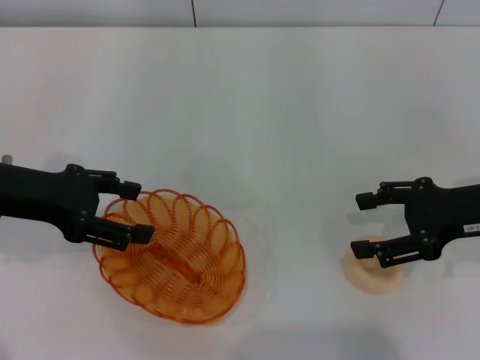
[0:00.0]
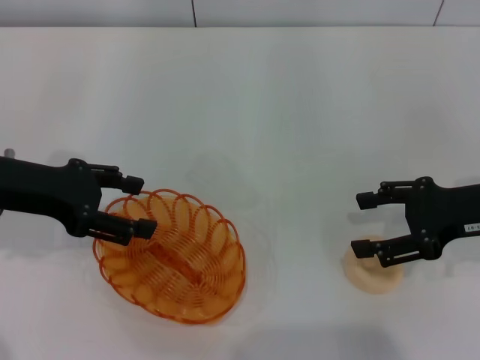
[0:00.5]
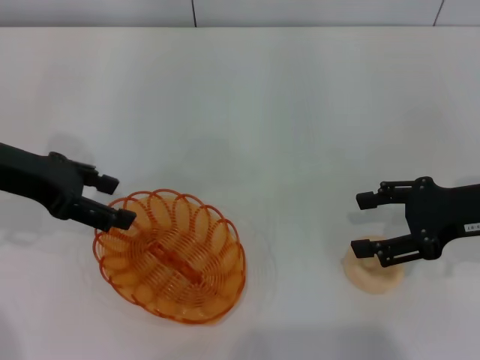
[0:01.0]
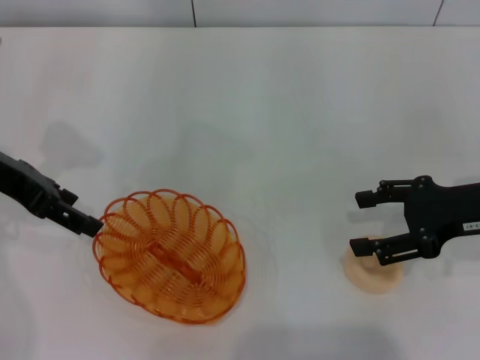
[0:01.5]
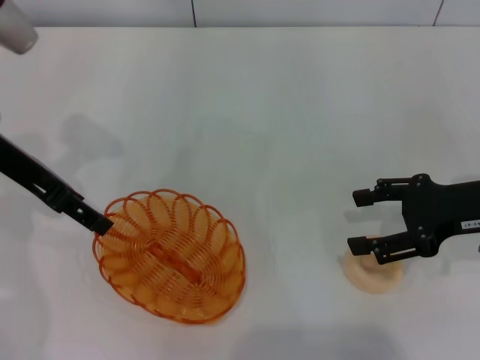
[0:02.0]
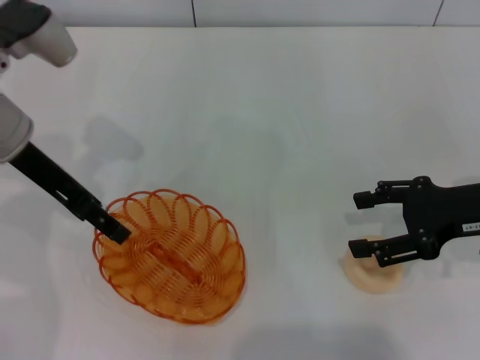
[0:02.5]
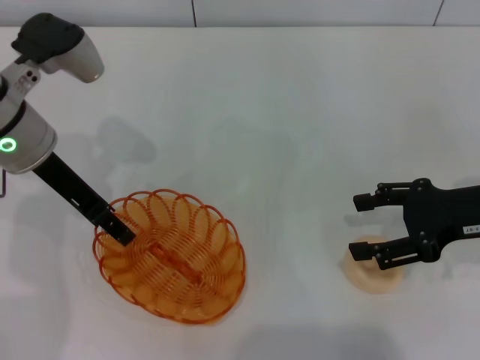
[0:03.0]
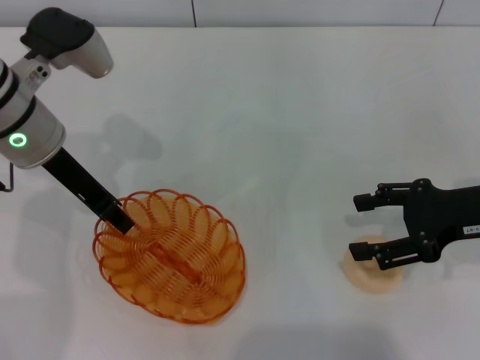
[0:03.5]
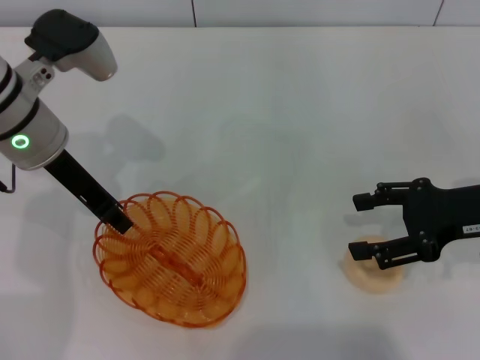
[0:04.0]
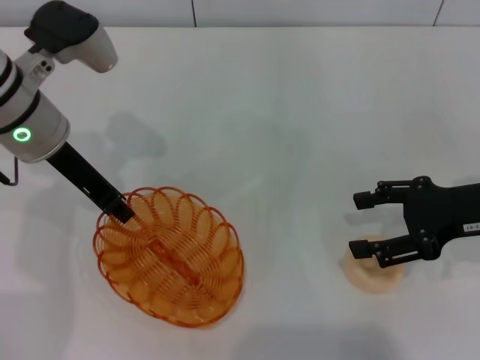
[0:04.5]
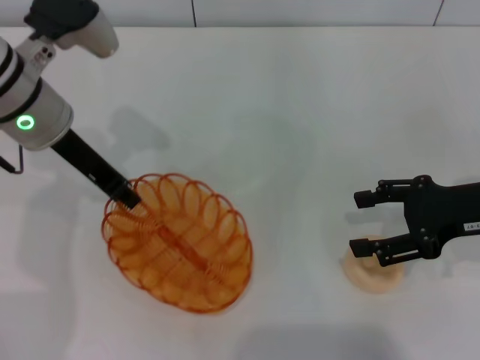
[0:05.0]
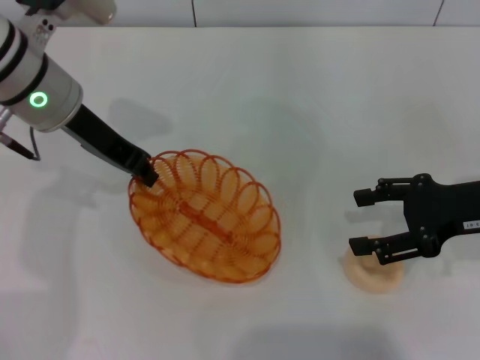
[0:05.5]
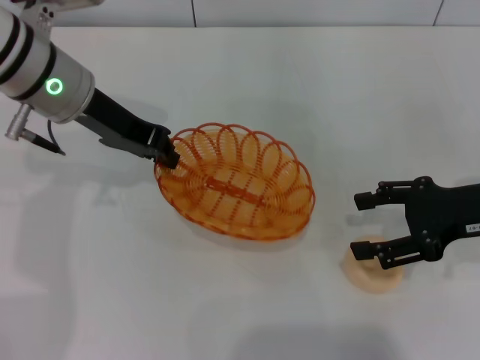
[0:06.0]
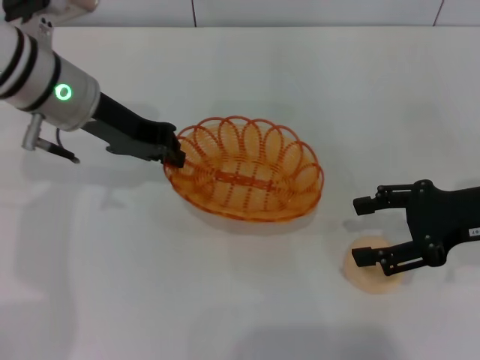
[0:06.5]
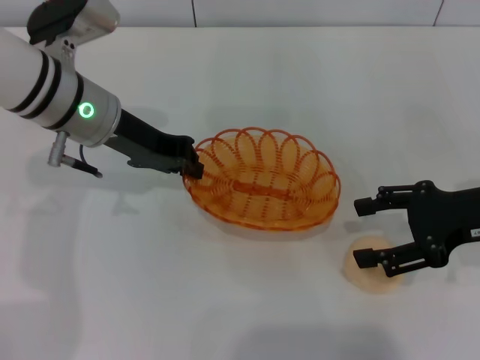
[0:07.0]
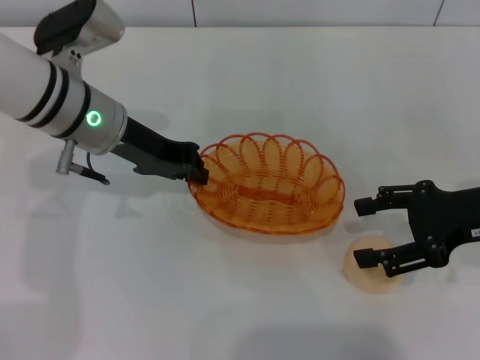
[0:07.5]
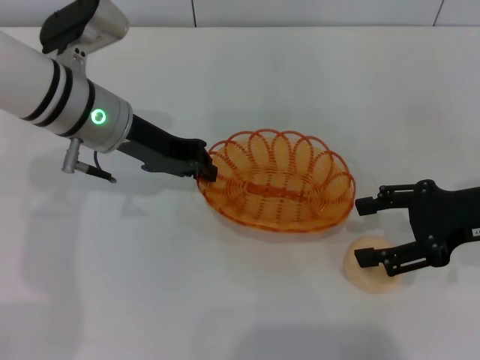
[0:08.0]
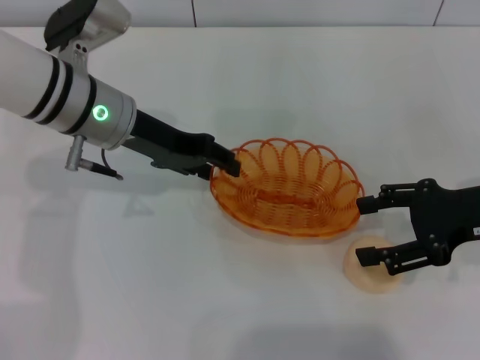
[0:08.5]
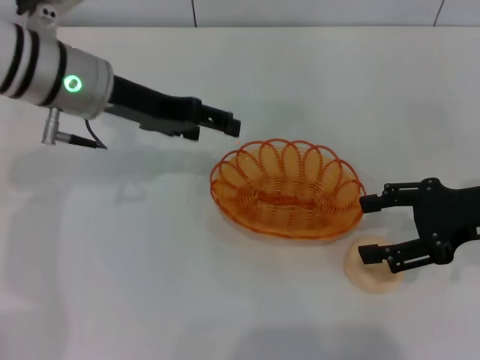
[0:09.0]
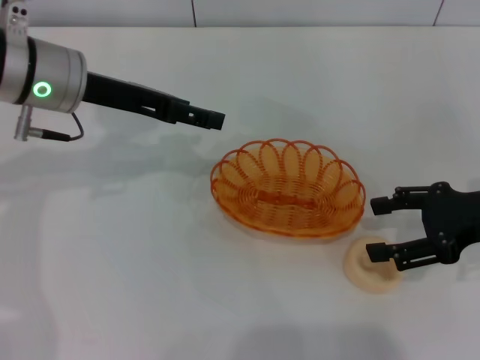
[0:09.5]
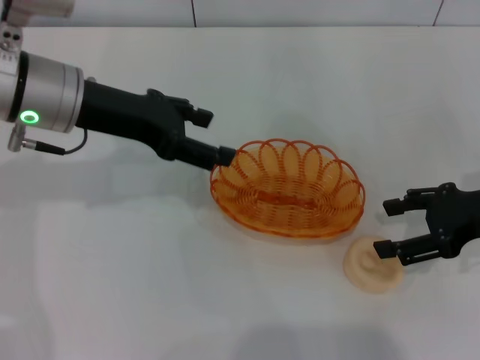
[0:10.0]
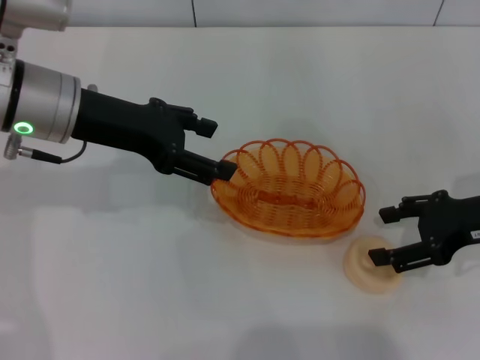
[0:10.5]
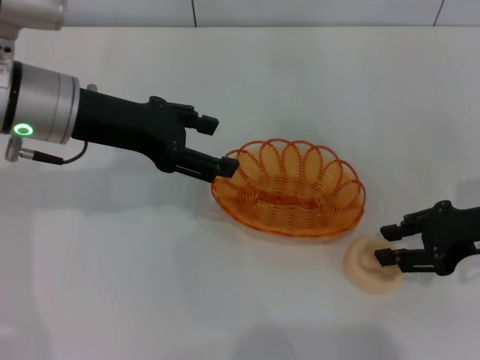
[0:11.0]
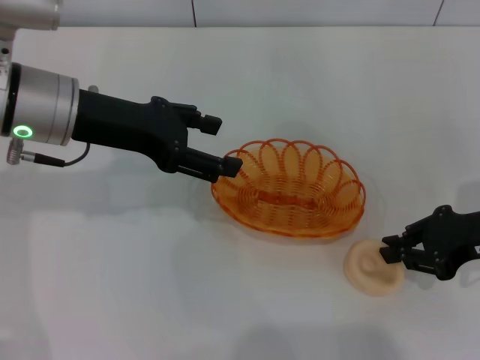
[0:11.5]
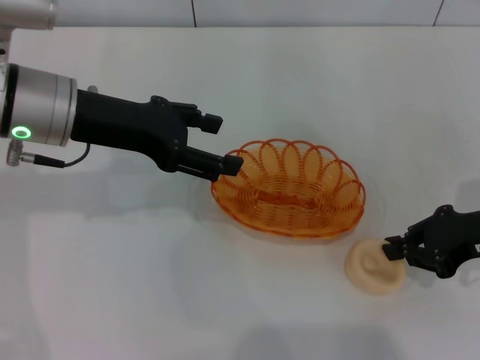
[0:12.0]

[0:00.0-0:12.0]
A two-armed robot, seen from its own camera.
Step, 0:00.0 to 0:04.5: Pick up the basket with the left gripper.
Step, 0:05.5 to 0:09.5: Place the basket in the center of view with the left gripper.
0:00.0 to 0:02.0: The left gripper heads forward, covering approximately 5 cm.
0:02.0 to 0:04.0: The left gripper heads to the right, covering approximately 5 cm, and closes up.
0:06.0 to 0:08.0: There are only small adjustments of the grippers.
0:08.0 to 0:10.0: The left gripper changes place by some 5 cm, and opens its fingers.
0:10.0 to 0:12.0: The right gripper closes up.

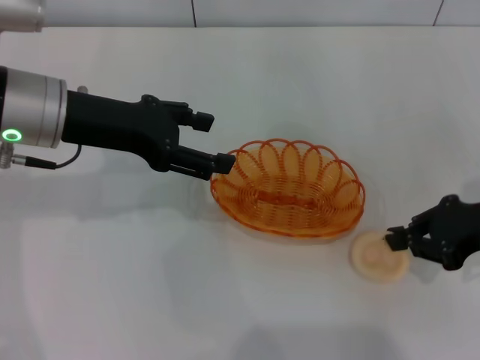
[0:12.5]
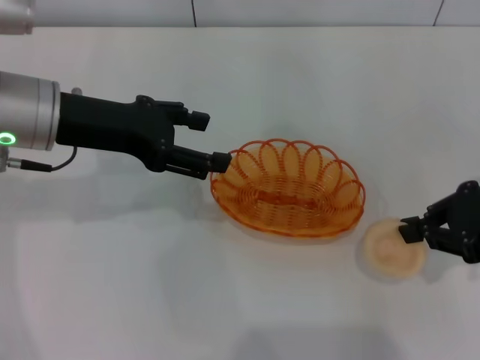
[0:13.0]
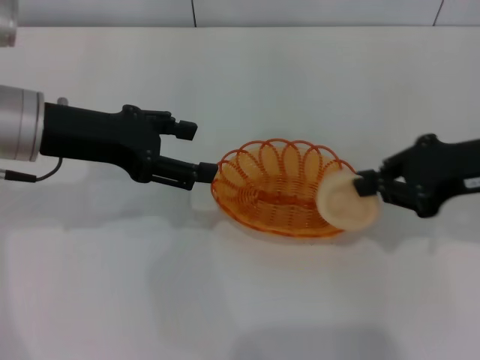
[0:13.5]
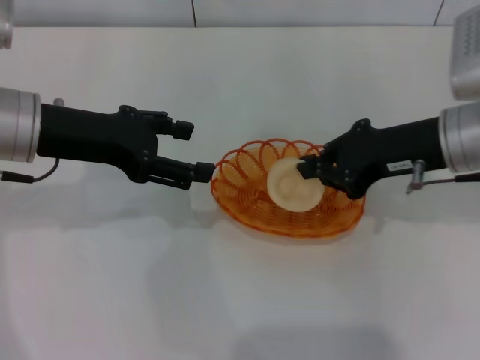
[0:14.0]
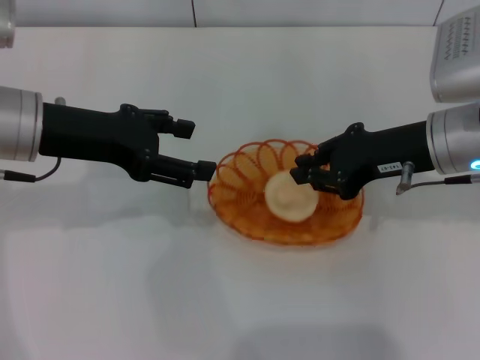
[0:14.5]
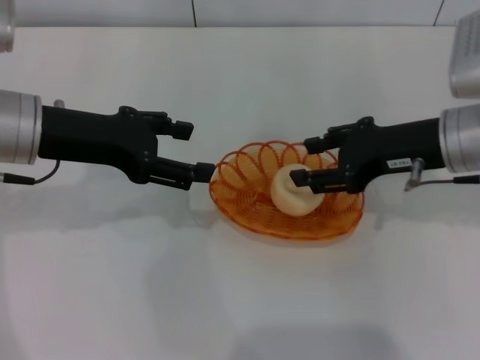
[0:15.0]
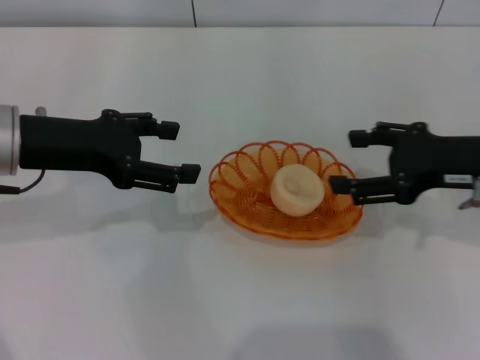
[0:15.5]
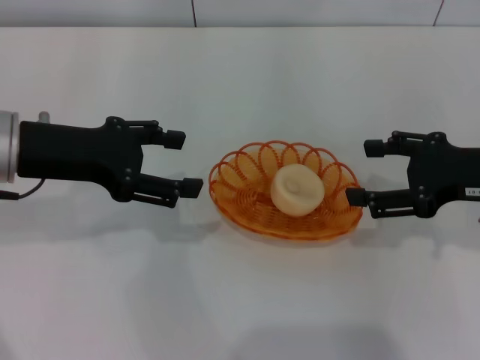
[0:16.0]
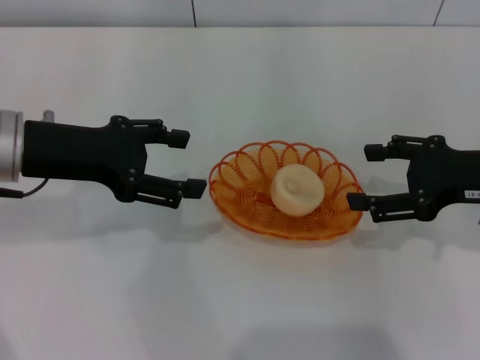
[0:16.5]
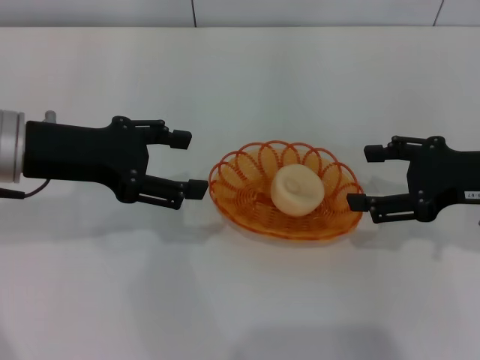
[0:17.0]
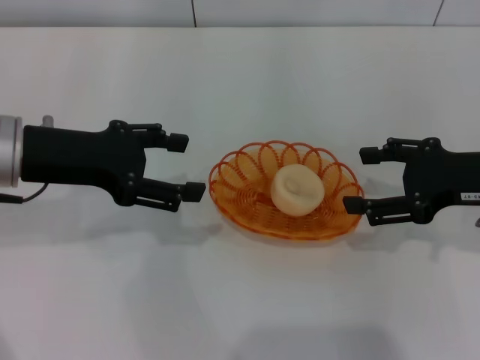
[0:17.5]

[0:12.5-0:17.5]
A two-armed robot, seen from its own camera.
Step, 0:13.5 to 0:16.5: Place the egg yolk pastry into the basket with the right gripper.
0:12.5 to 0:15.0: The right gripper shifts about 10 cm to the left, and opens up.
0:15.0 to 0:17.5: The right gripper shifts approximately 5 cm to the right, and opens.

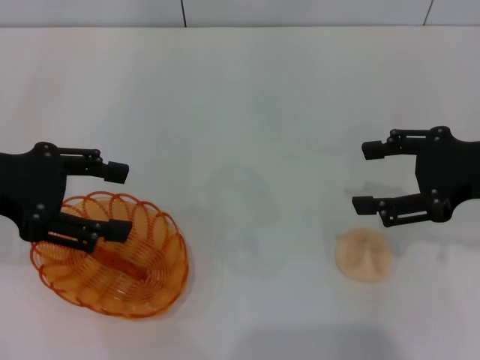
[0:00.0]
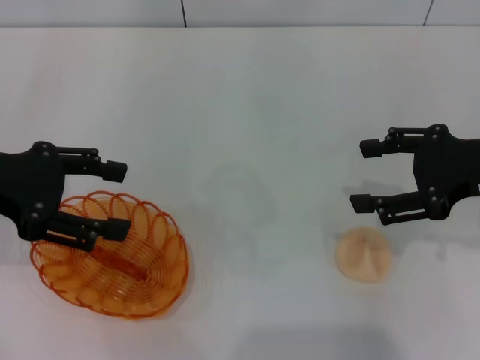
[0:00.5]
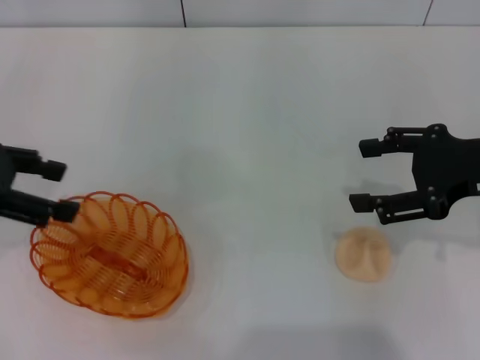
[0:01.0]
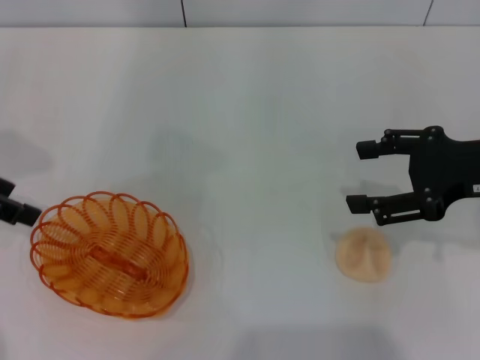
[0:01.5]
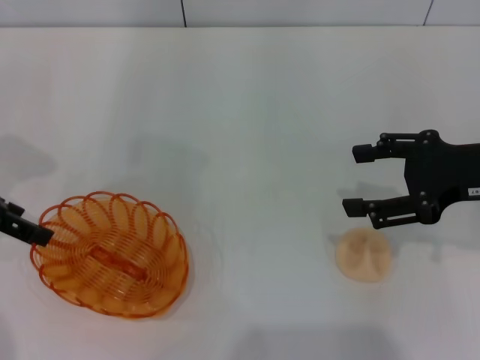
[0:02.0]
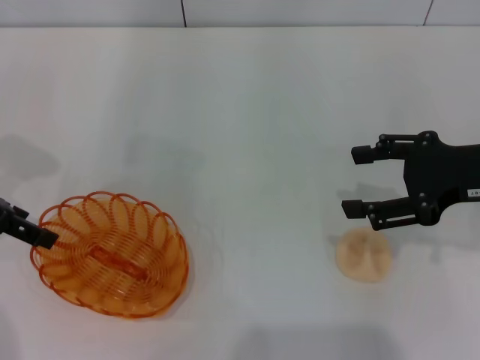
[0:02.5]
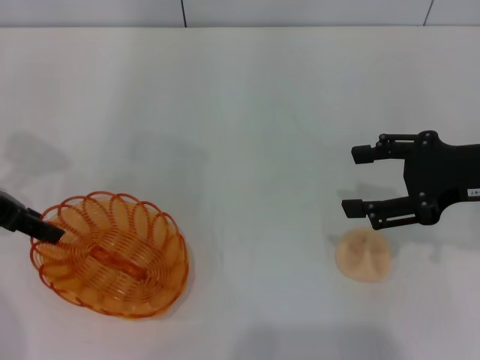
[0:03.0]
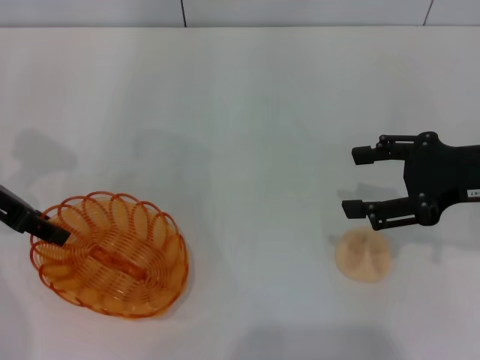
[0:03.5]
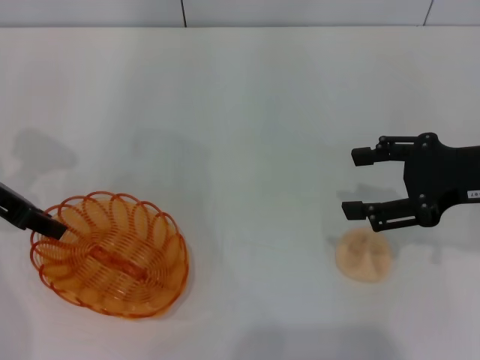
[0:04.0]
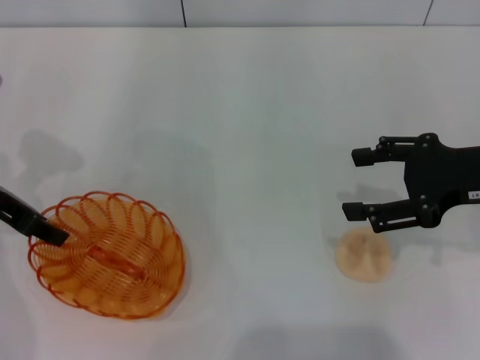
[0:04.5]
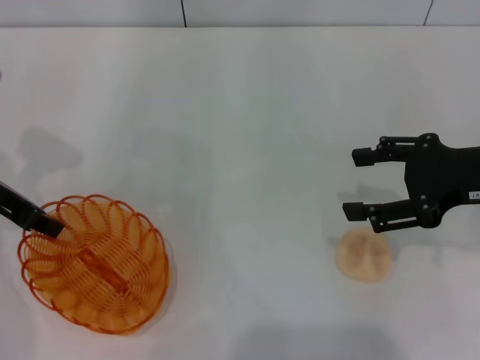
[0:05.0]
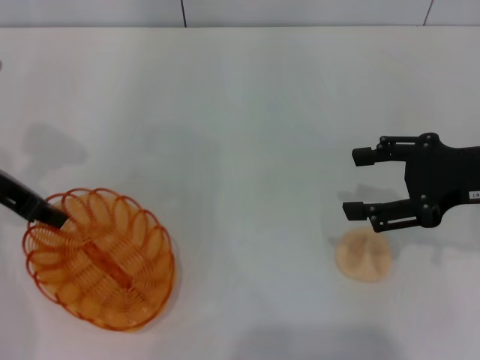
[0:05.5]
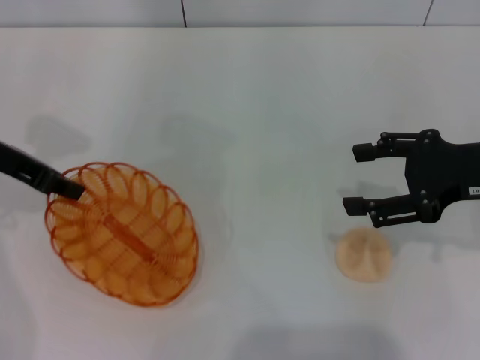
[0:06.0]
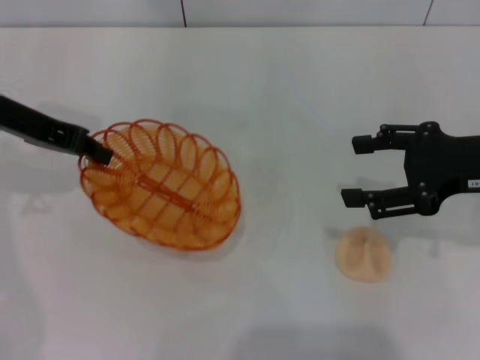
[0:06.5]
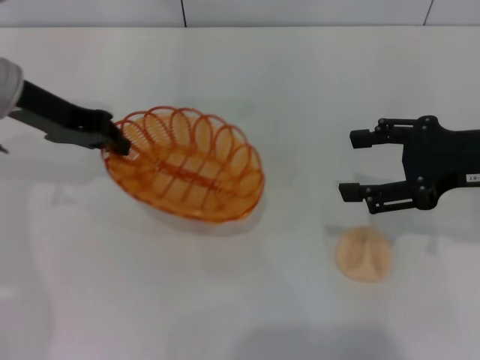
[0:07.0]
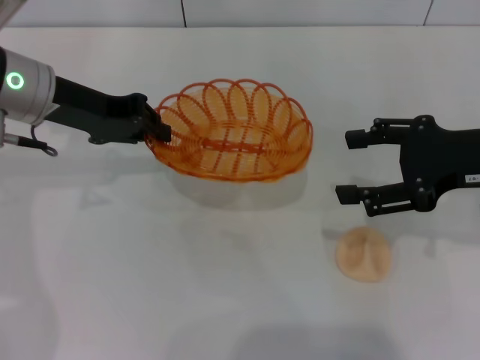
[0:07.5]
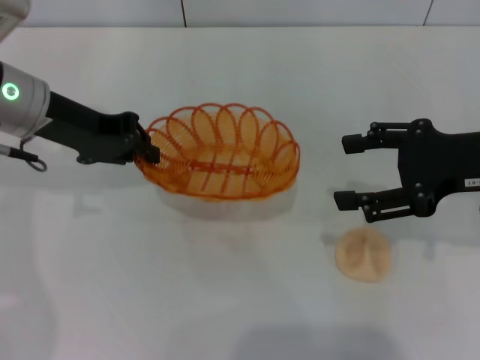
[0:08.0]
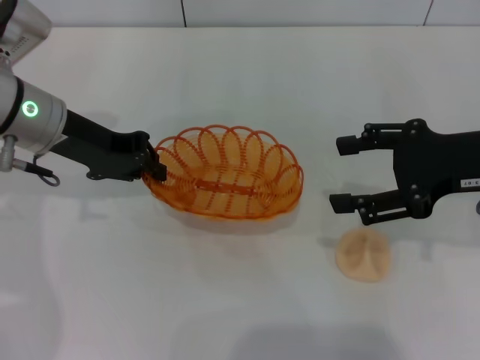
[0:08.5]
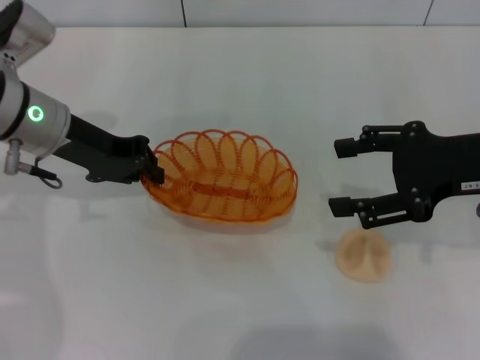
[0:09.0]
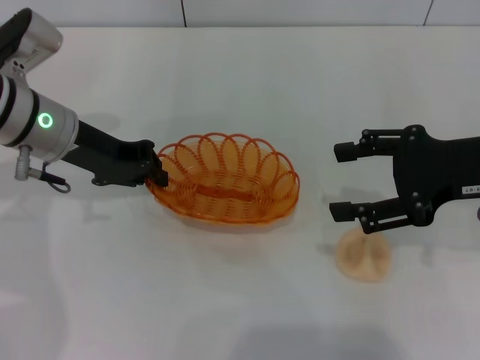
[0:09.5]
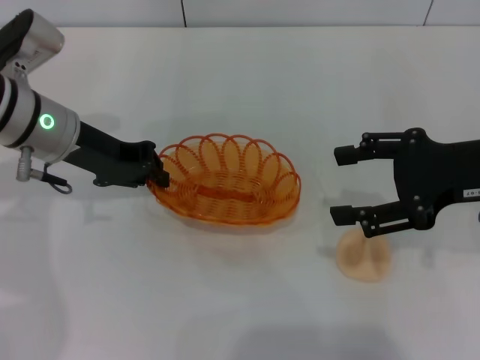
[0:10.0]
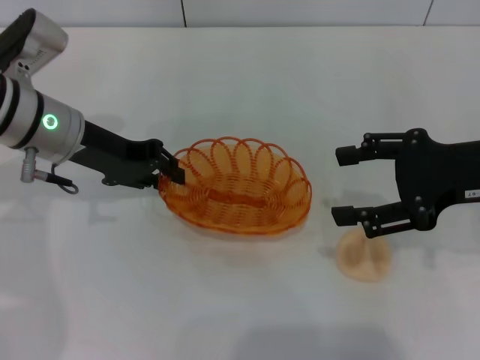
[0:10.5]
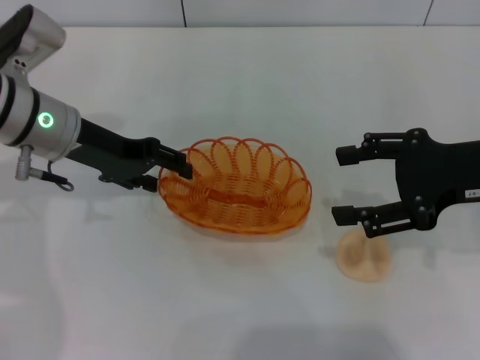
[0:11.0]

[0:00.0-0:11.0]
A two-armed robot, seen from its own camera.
Step, 0:00.0 to 0:09.0: Pick up the basket with the left gripper.
0:00.0 to 0:02.0: The left gripper shifts by approximately 5 cm.
0:02.0 to 0:03.5: The left gripper closes.
0:03.5 to 0:05.5: The left gripper closes up.
0:05.5 to 0:07.5: The left gripper is displaced to the right by roughly 5 cm.
0:09.0 to 0:11.0: The left gripper opens.
